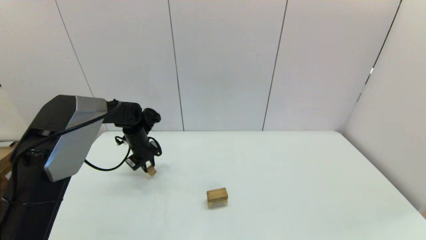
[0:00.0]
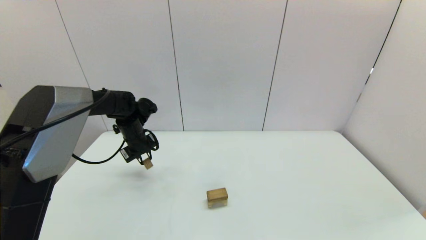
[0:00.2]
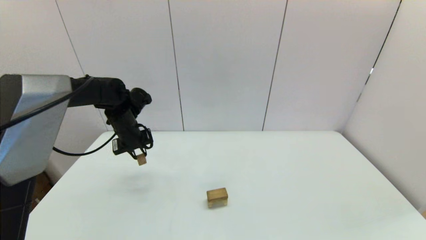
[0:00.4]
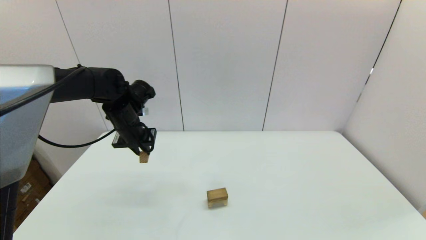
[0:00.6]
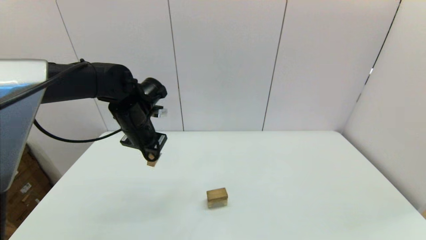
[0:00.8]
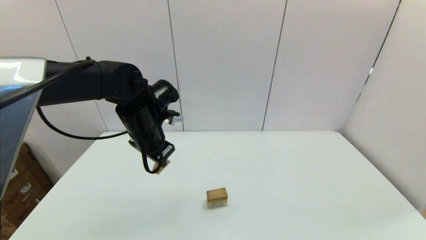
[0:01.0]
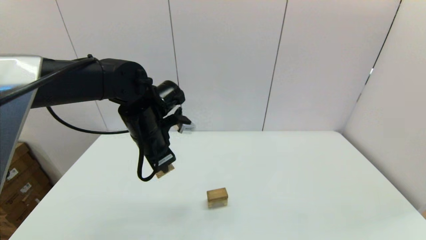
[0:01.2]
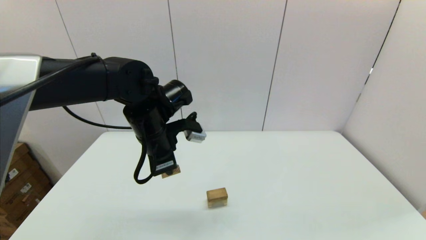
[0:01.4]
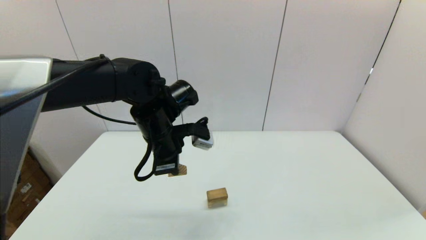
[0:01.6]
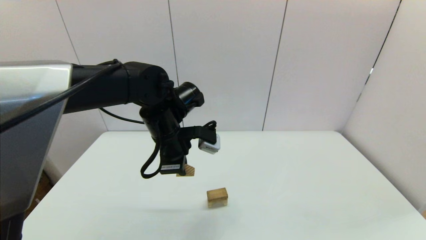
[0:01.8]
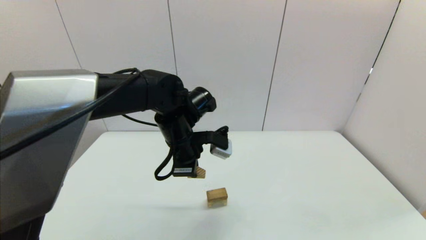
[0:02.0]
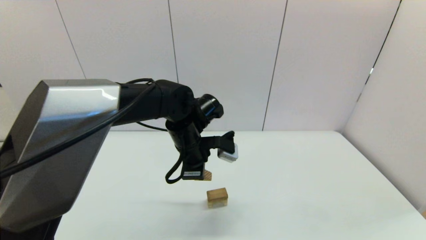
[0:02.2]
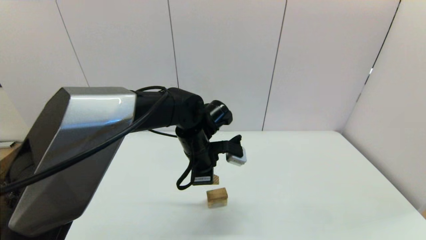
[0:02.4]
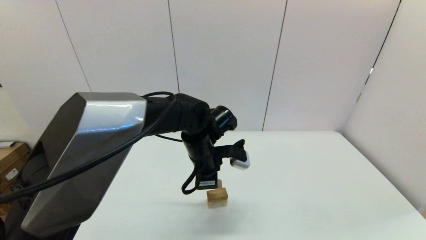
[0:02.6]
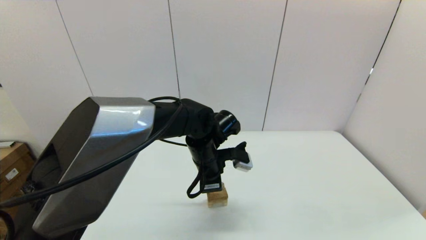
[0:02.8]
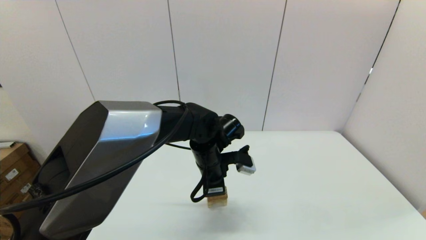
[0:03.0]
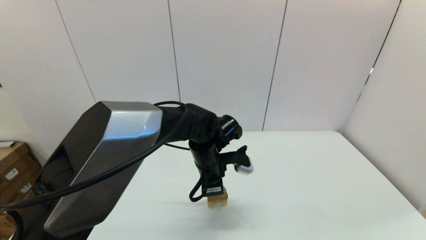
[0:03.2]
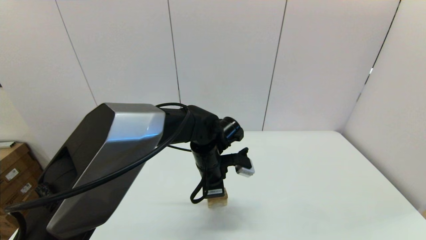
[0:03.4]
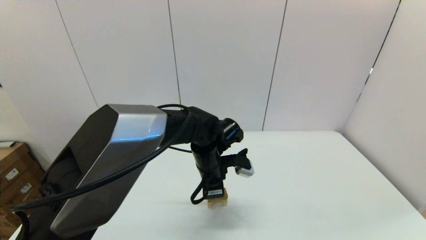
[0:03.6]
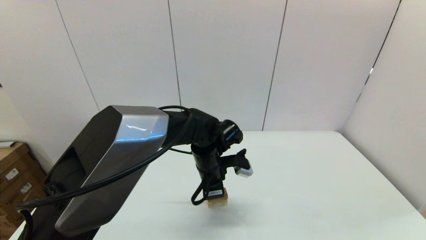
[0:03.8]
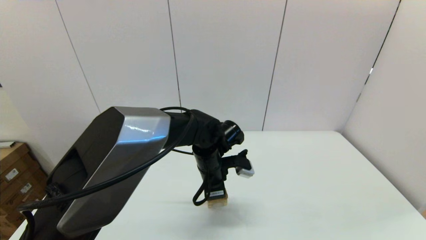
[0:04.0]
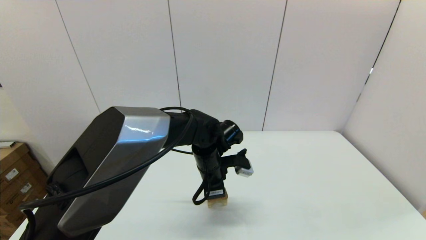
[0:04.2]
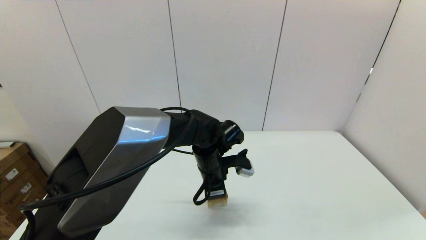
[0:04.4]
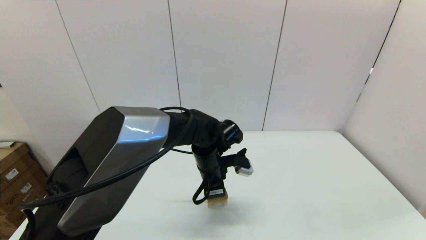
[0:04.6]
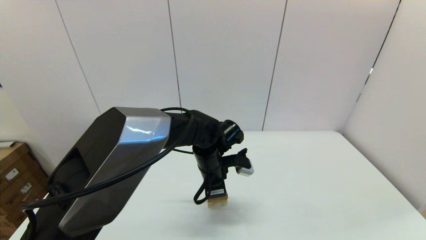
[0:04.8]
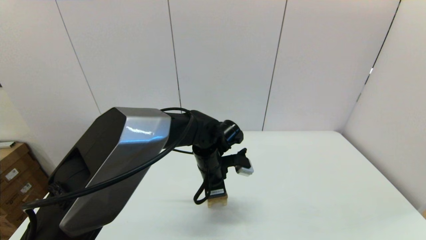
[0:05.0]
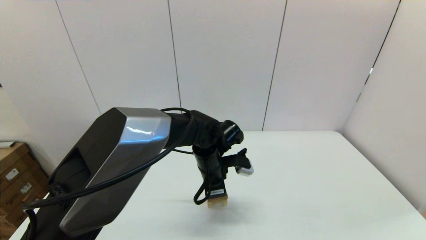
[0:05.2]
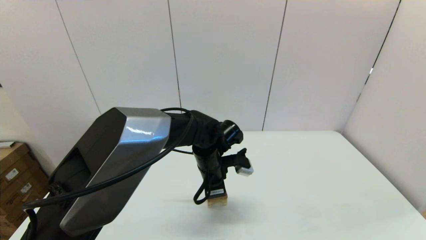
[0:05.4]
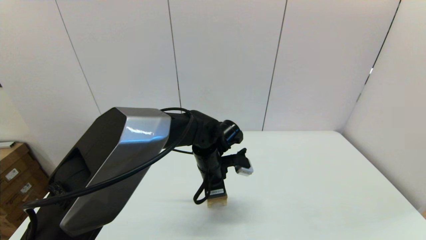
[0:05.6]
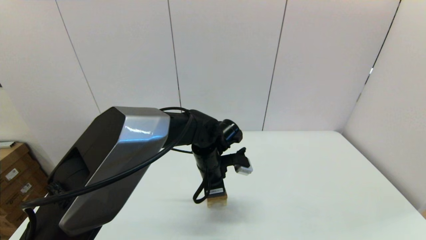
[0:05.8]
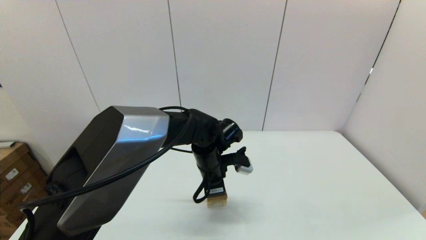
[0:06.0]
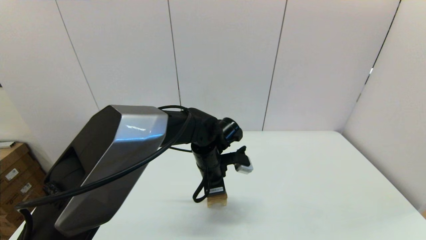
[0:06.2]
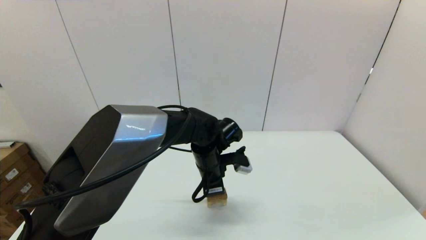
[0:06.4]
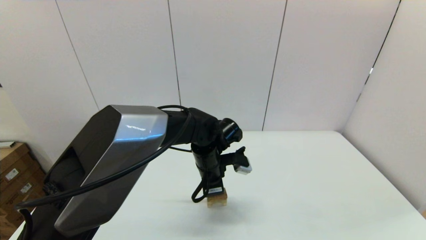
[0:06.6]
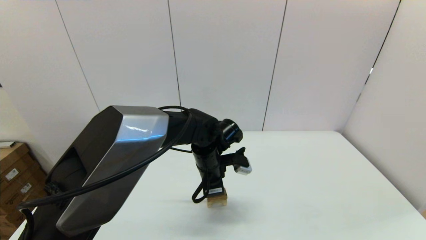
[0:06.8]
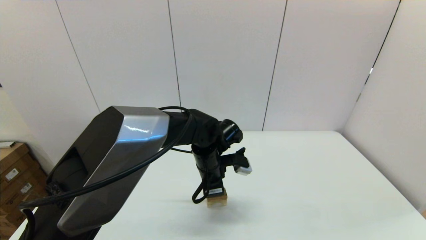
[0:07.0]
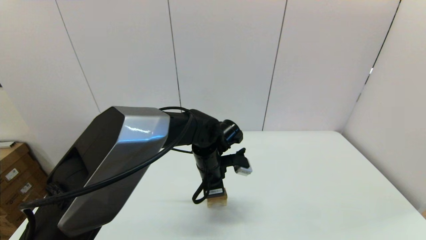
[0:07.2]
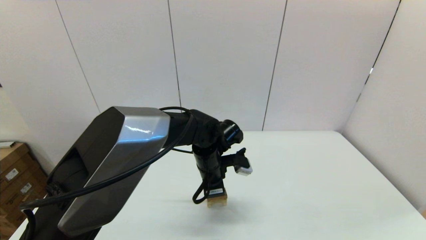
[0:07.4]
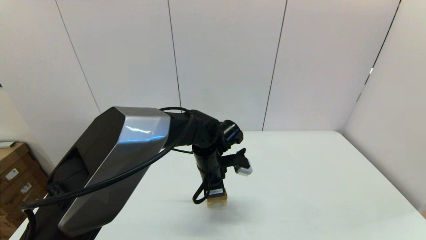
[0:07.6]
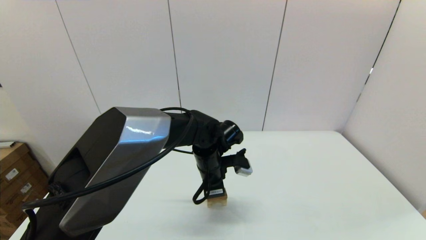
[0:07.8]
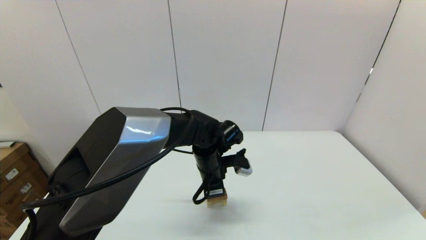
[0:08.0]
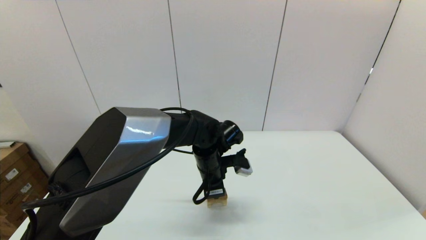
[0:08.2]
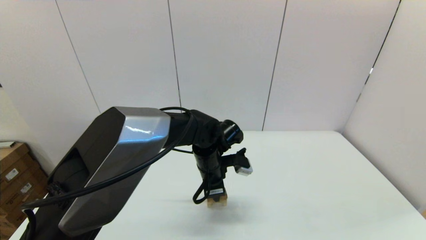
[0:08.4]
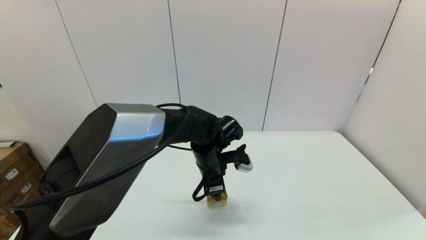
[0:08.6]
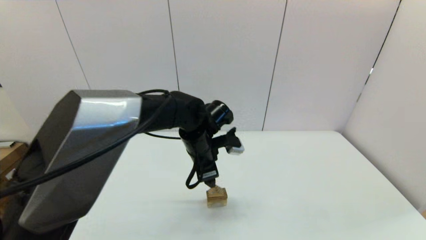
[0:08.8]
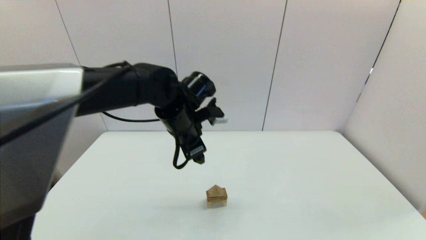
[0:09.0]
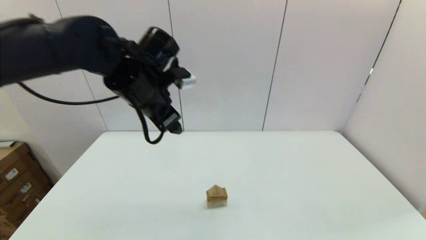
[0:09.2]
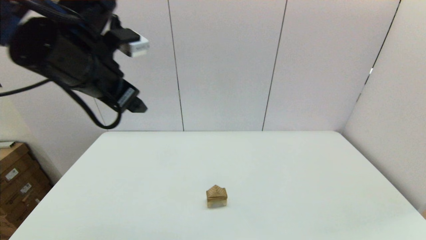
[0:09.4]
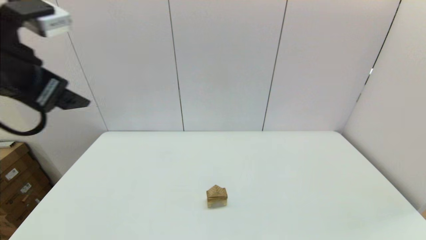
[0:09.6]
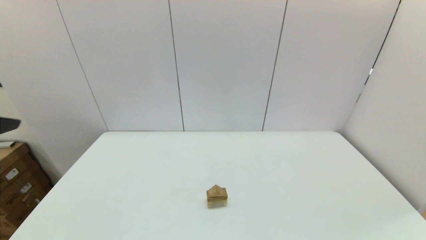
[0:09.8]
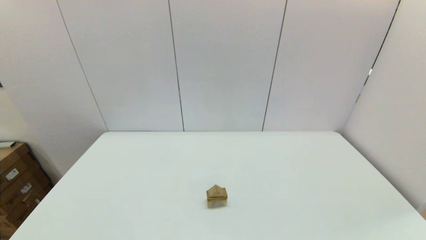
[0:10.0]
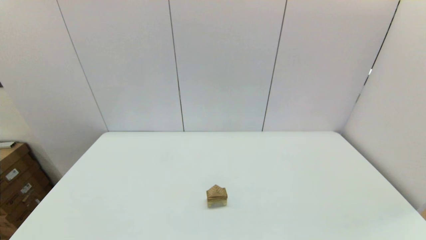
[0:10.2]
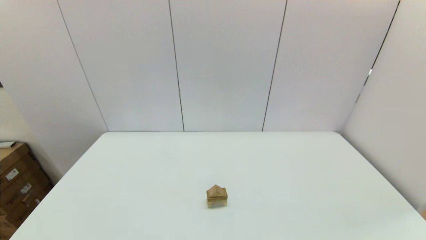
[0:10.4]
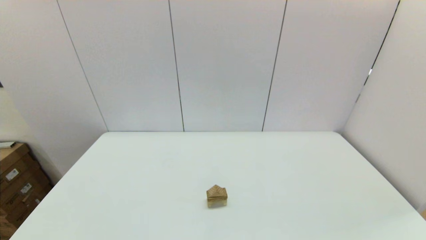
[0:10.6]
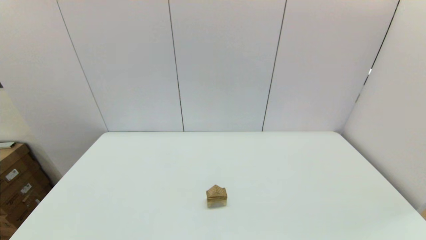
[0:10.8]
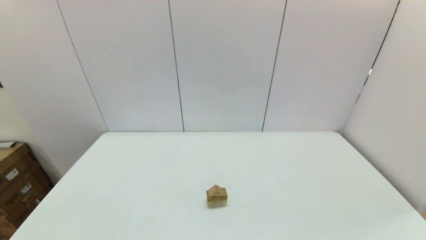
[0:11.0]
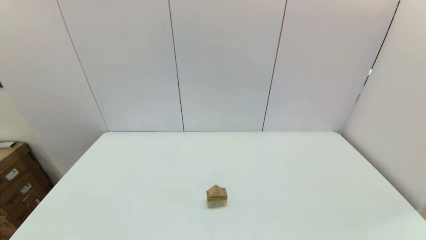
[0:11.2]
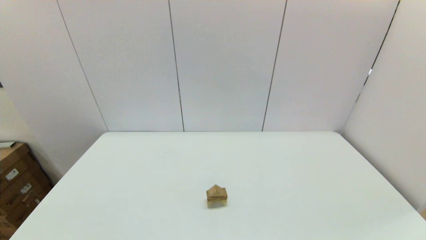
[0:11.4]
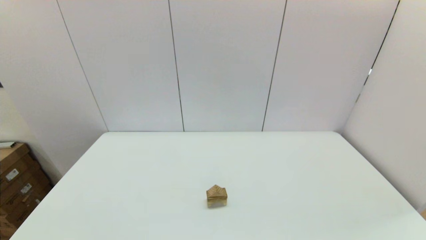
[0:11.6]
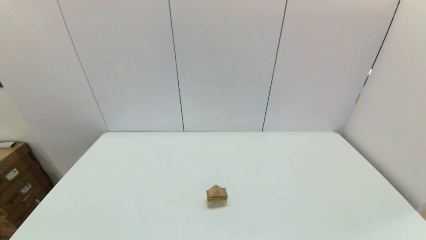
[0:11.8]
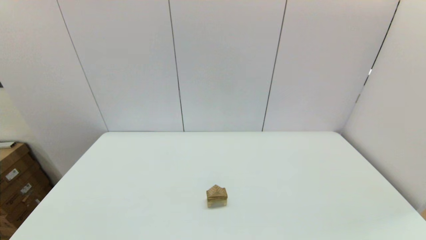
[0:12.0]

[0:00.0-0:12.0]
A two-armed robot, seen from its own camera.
Task of the whole recording: place the arched building blocks in the center of the table, set up the rectangular building blocks, and then set up the triangular building blocks.
0:00.0 to 0:01.6: The left gripper goes about 20 cm upward, backward and to the right.
0:01.6 to 0:03.0: The left gripper is displaced to the right and downward by approximately 15 cm.
0:03.0 to 0:04.4: The grippers move only a little.
0:04.4 to 0:07.6: Neither gripper changes place.
0:07.6 to 0:09.0: The left gripper moves upward and to the left, approximately 10 cm, and opens its fingers.
0:09.0 to 0:10.4: The left gripper goes roughly 50 cm backward and to the left.
